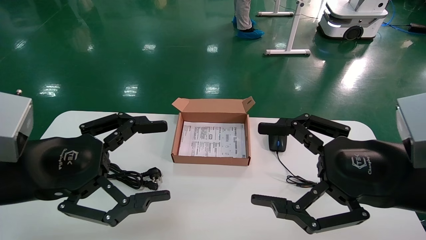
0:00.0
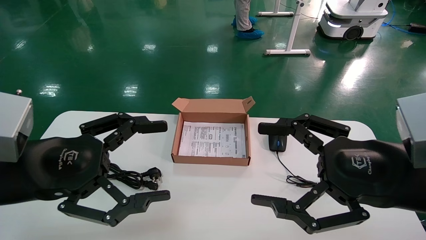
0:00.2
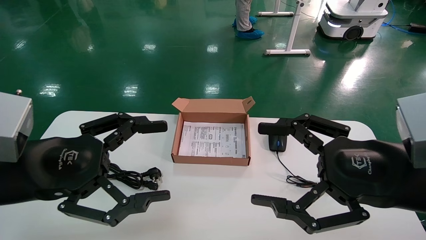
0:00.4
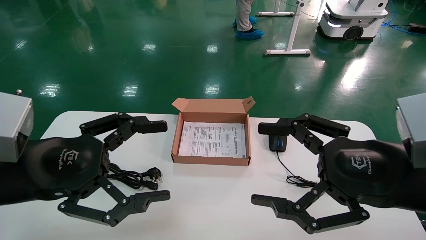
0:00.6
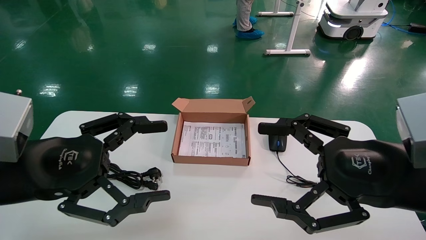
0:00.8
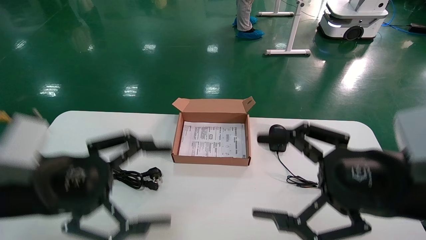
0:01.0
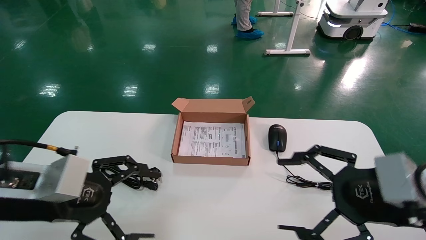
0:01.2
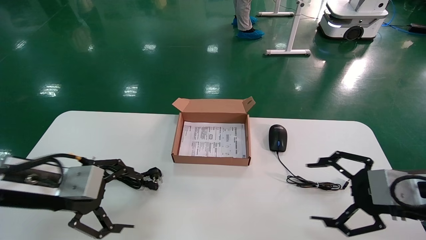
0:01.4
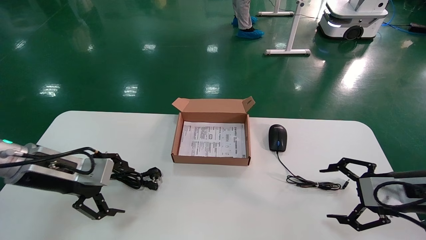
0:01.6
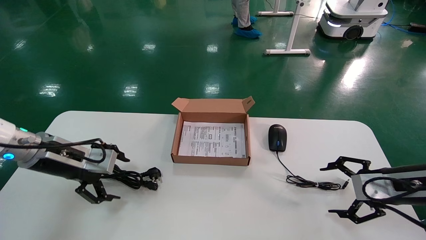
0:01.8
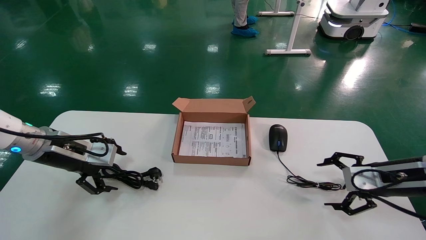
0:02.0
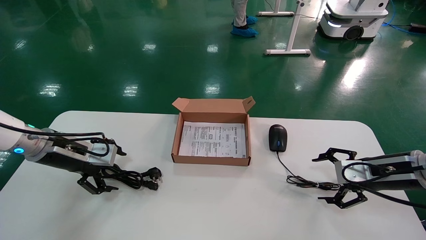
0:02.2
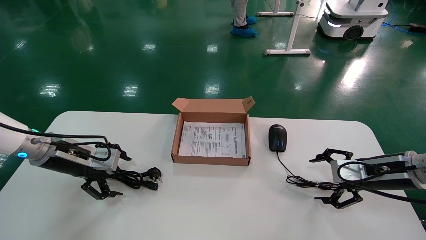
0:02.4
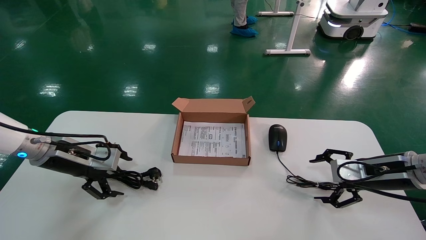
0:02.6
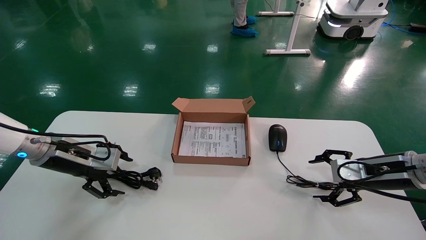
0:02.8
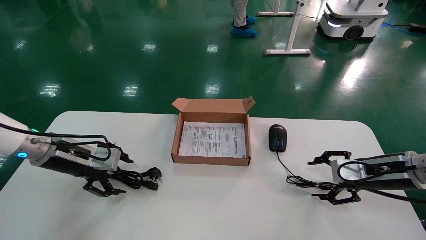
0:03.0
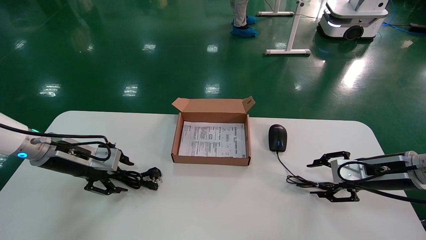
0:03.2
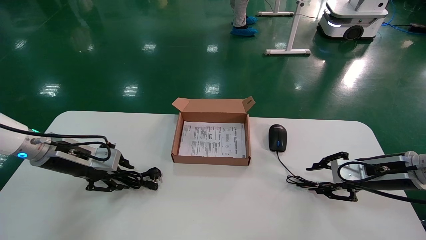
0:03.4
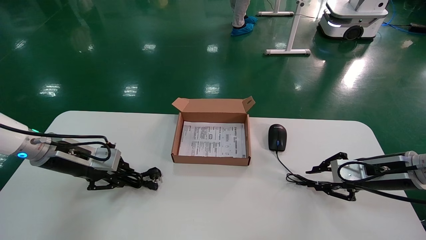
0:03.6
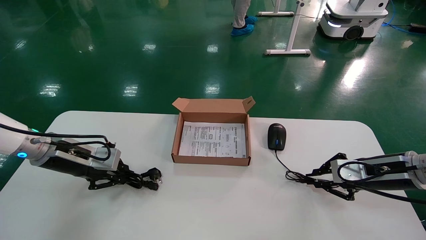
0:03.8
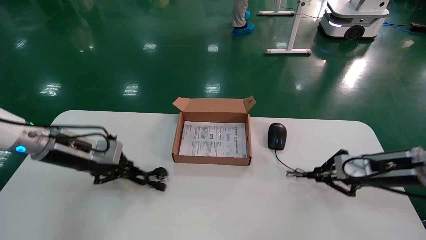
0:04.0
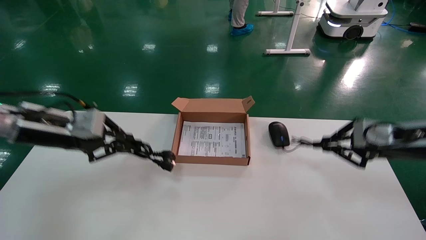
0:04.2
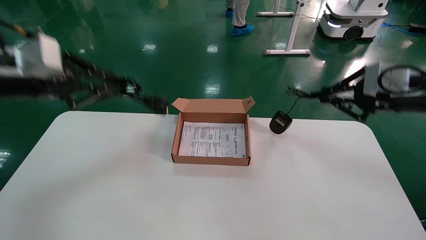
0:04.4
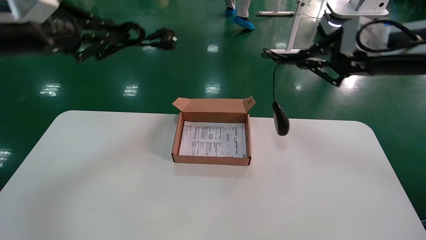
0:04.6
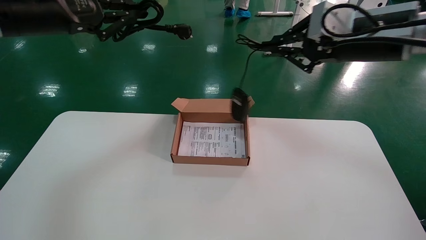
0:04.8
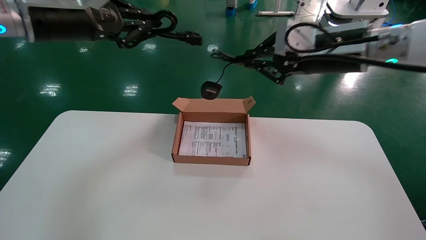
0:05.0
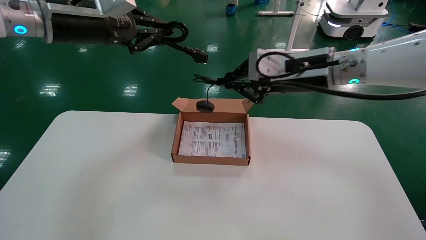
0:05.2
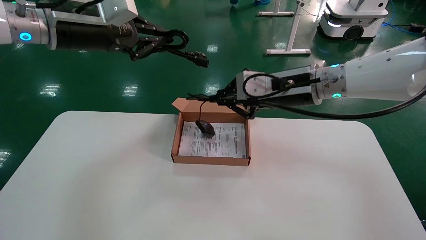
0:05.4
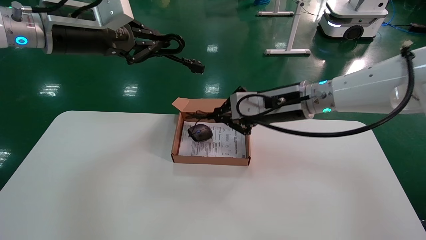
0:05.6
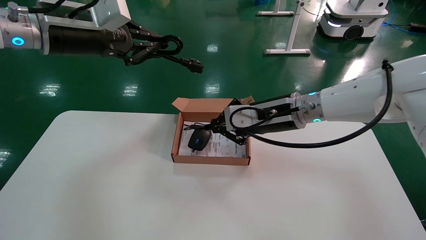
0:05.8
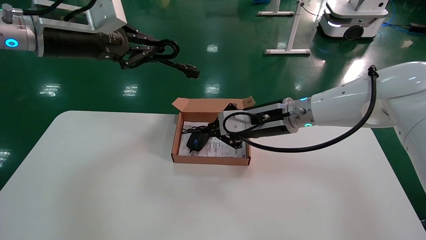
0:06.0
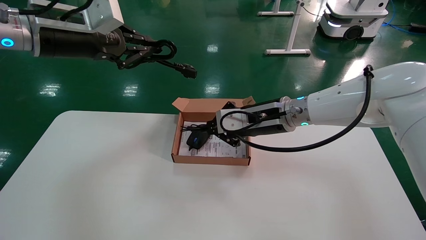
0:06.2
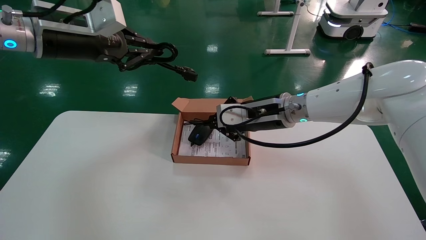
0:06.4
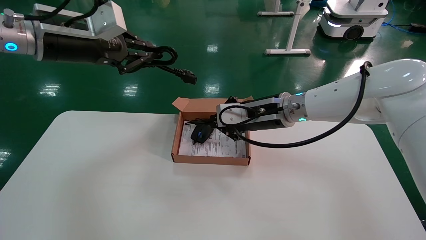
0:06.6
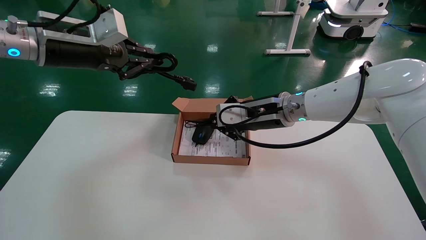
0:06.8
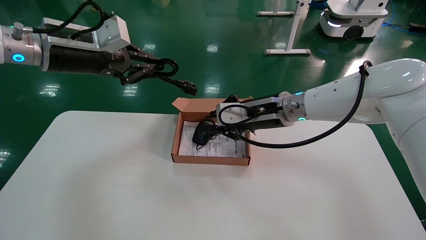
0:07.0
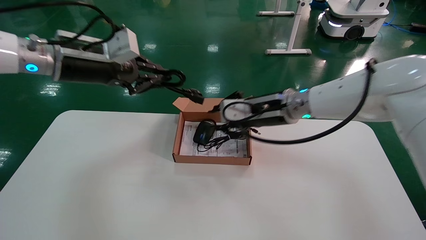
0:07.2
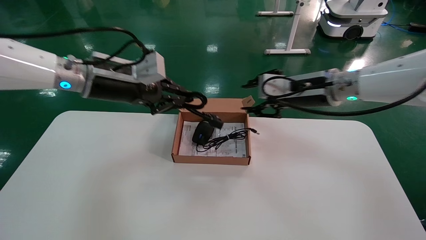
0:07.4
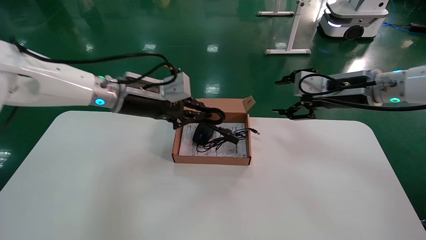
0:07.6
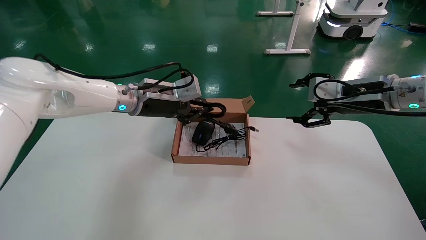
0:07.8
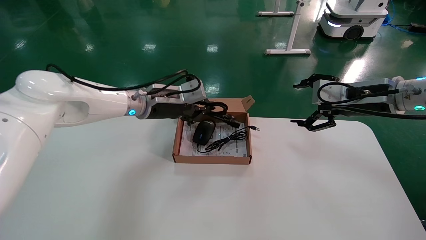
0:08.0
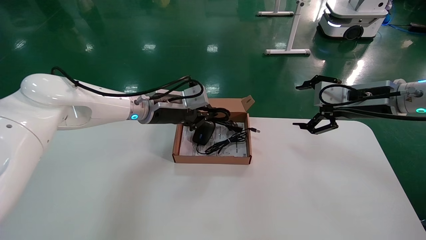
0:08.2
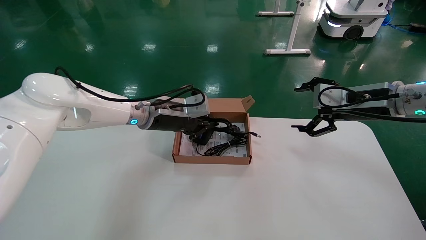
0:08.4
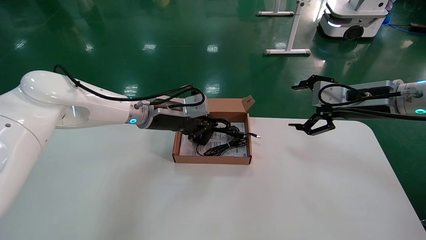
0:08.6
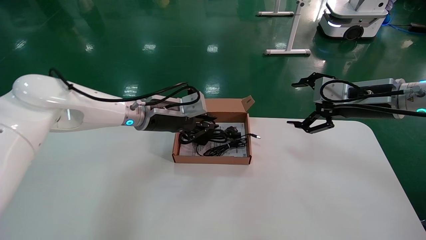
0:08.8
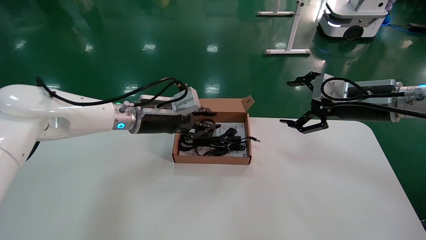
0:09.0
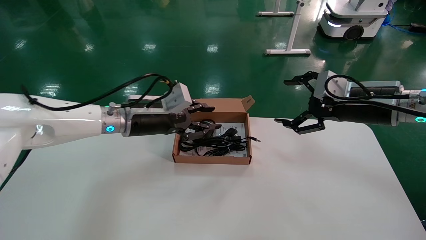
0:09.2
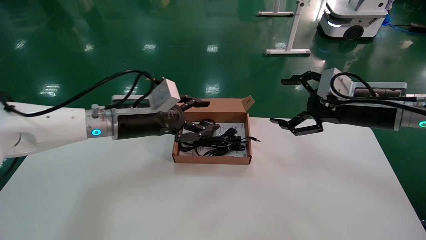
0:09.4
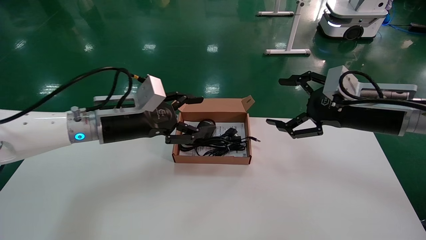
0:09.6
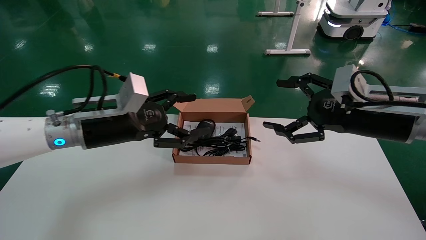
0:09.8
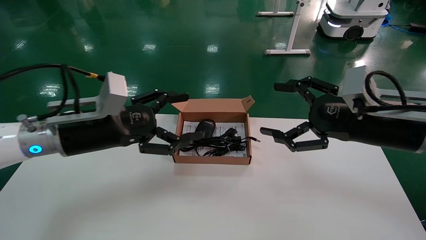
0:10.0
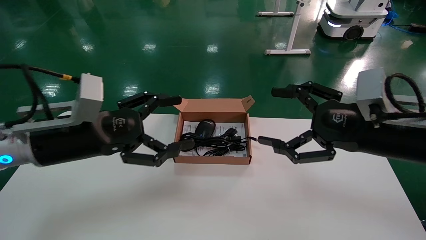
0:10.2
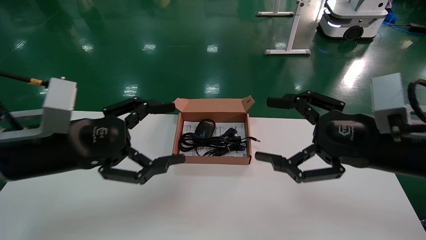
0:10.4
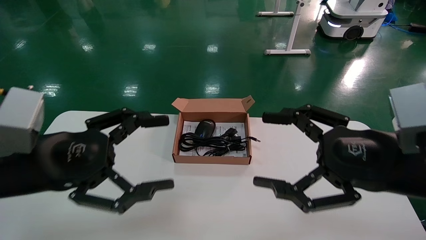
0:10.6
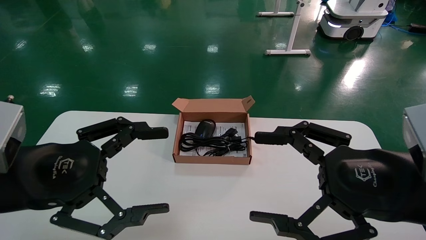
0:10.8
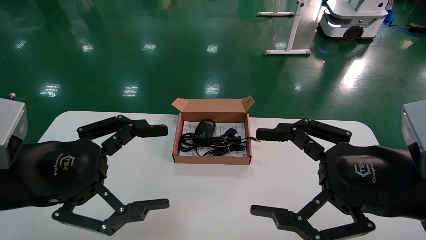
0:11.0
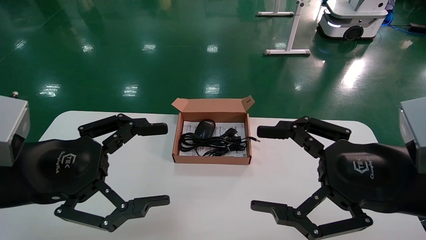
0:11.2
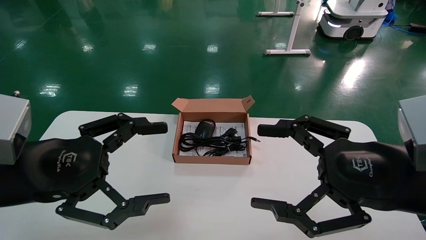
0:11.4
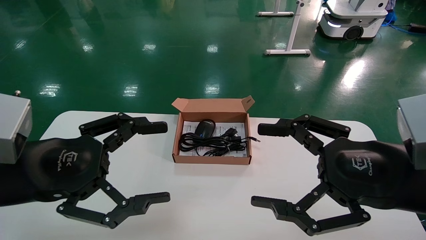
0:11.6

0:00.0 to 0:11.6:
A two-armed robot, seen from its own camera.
Step, 0:01.4 to 0:04.2: Grab and lift both the mouse and power cord from the accessory packaging area at the same time.
Step, 0:04.4 to 0:09.0: Place the mouse and power cord into the box.
0:00.0 to 0:01.4: The left gripper heads forward, covering approximately 5 cm; the right gripper moves to the right, forward and downward, some 10 cm.
0:01.4 to 0:02.8: Both grippers travel together forward, roughly 10 cm.
0:02.8 to 0:04.4: Both grippers travel together upward, about 15 cm. The left gripper closes. Meanwhile the right gripper closes up.
0:04.4 to 0:05.8: The left gripper moves to the right and upward, roughly 10 cm; the right gripper heads to the left, covering roughly 20 cm.
0:05.8 to 0:07.2: The left gripper travels downward by some 5 cm.
0:07.2 to 0:08.8: The right gripper shifts some 15 cm to the right, and opens its fingers. The left gripper shifts about 15 cm downward, to the right and forward.
0:08.8 to 0:10.2: The right gripper shifts some 15 cm backward. Meanwhile the left gripper travels backward and to the left by roughly 20 cm, and opens.
0:10.2 to 0:11.6: Both grippers travel together backward, about 10 cm.

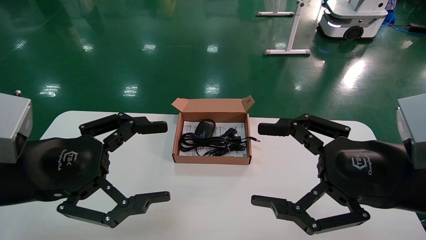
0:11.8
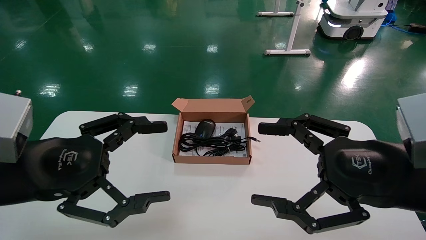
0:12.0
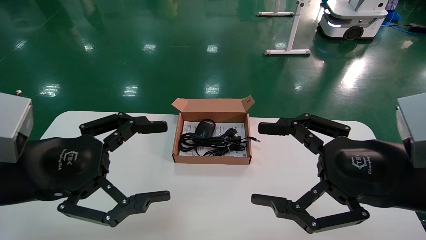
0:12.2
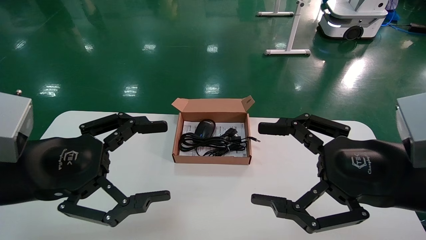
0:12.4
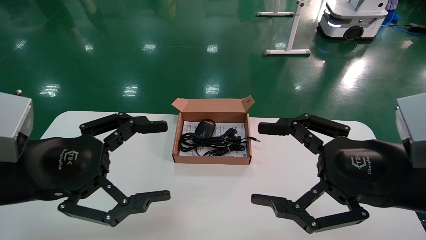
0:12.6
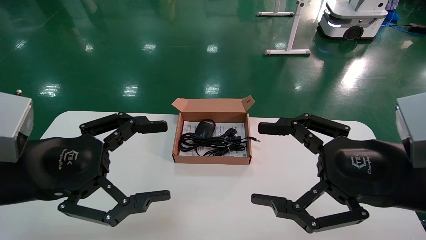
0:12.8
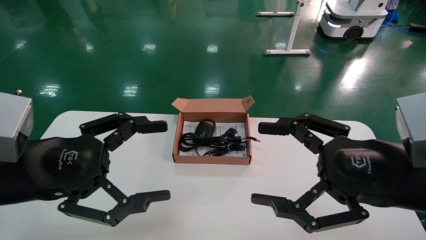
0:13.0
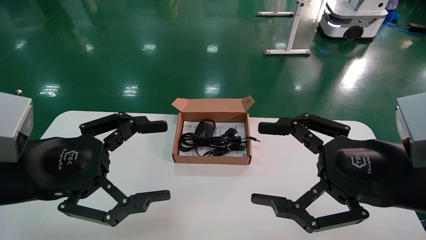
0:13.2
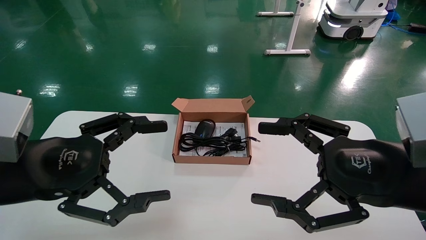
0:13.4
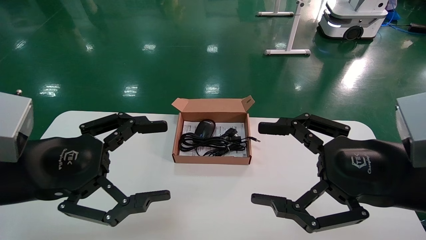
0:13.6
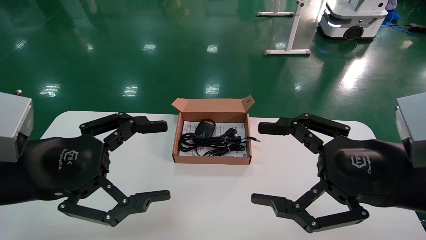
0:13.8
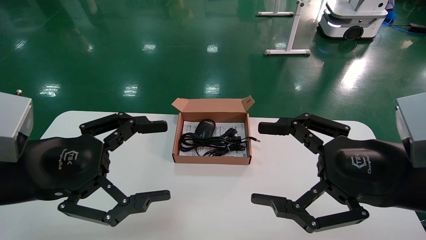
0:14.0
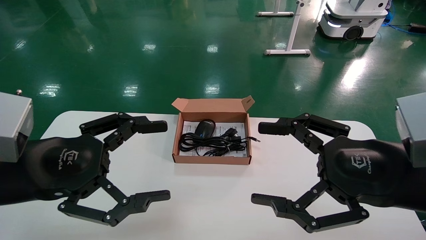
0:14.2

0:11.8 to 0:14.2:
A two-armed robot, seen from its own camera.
0:11.8 to 0:14.2: Both grippers stay about where they are.
